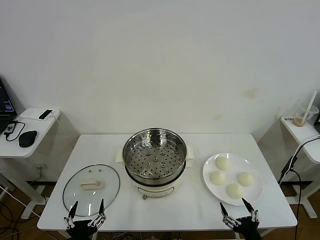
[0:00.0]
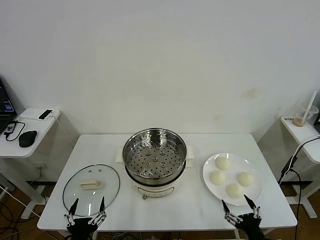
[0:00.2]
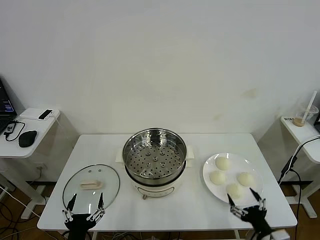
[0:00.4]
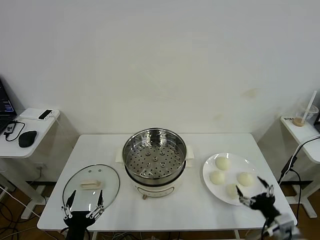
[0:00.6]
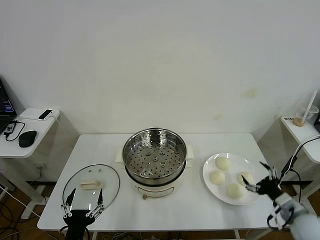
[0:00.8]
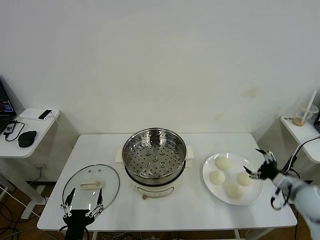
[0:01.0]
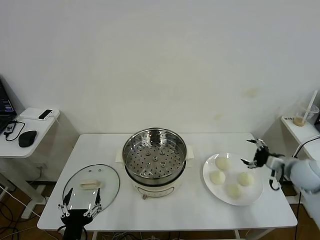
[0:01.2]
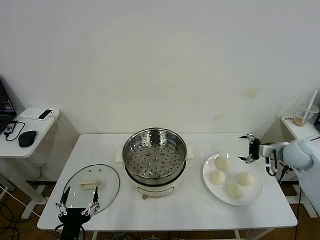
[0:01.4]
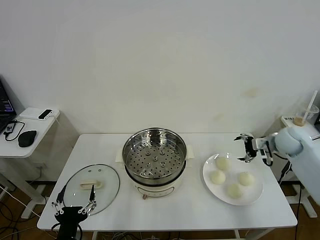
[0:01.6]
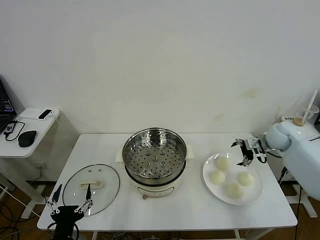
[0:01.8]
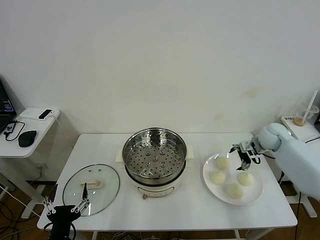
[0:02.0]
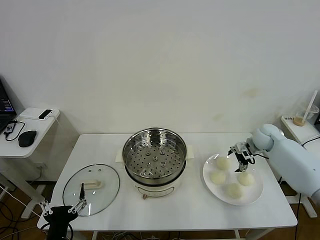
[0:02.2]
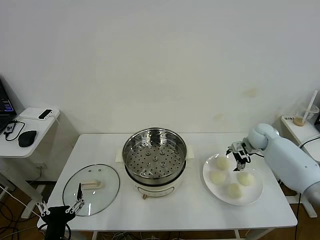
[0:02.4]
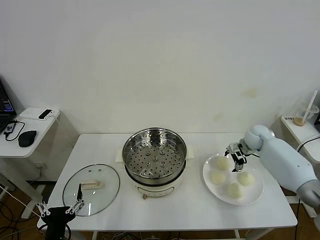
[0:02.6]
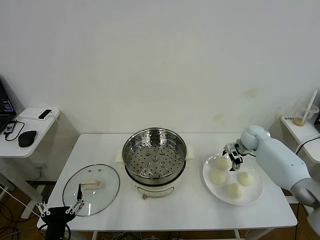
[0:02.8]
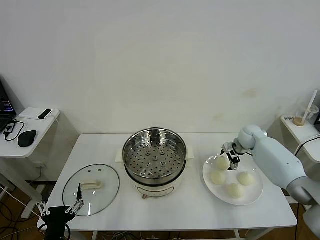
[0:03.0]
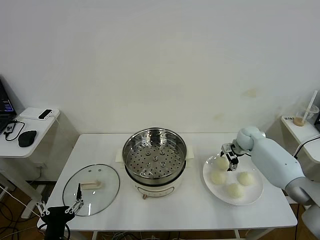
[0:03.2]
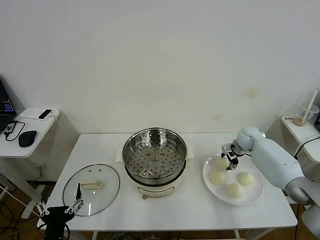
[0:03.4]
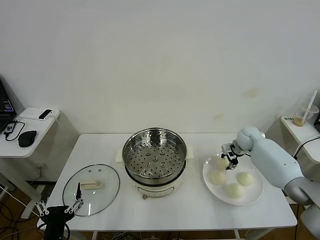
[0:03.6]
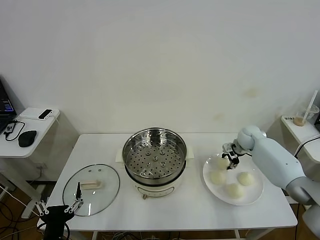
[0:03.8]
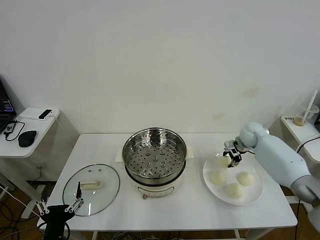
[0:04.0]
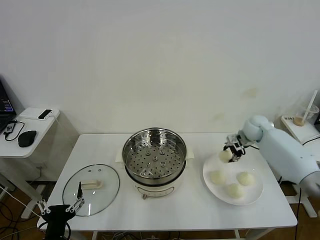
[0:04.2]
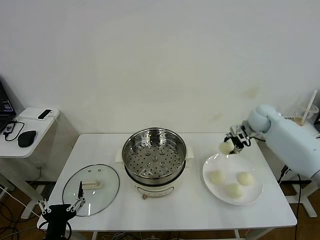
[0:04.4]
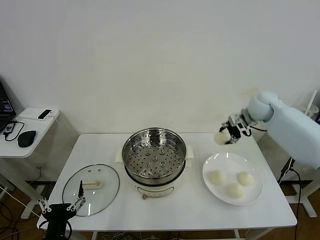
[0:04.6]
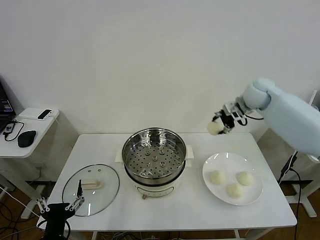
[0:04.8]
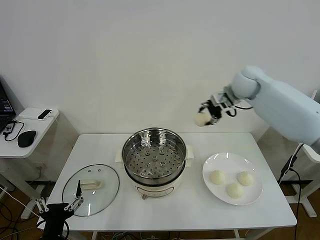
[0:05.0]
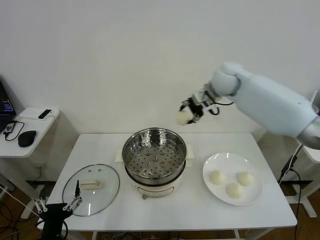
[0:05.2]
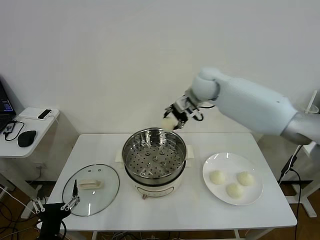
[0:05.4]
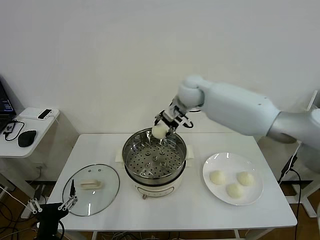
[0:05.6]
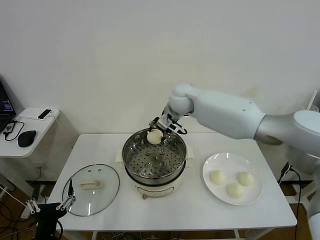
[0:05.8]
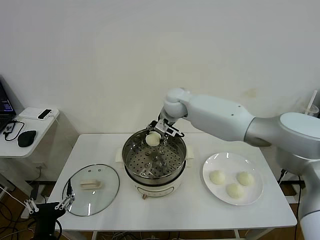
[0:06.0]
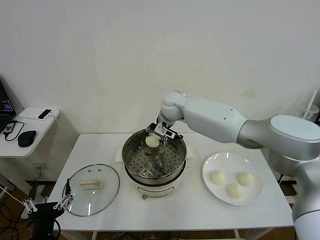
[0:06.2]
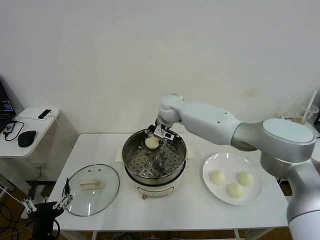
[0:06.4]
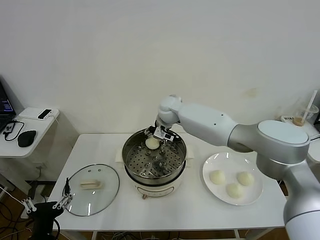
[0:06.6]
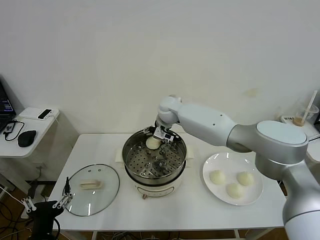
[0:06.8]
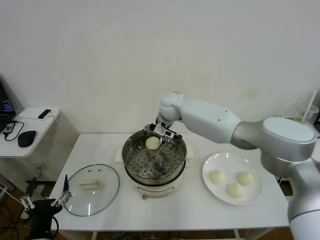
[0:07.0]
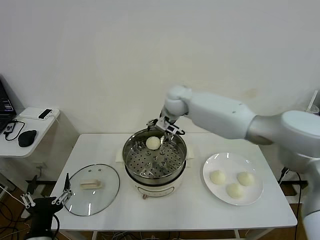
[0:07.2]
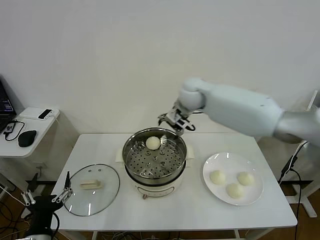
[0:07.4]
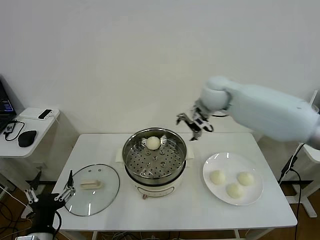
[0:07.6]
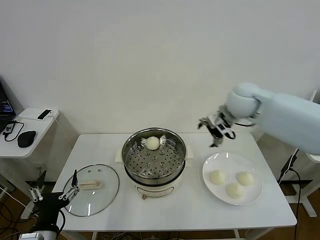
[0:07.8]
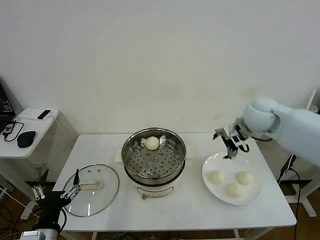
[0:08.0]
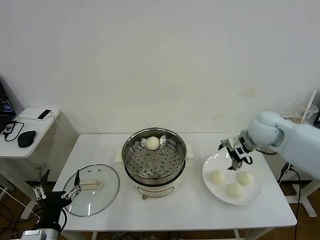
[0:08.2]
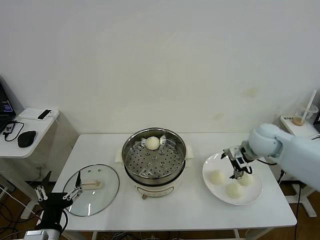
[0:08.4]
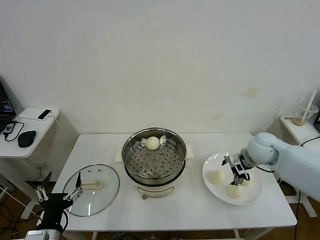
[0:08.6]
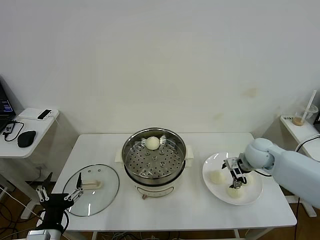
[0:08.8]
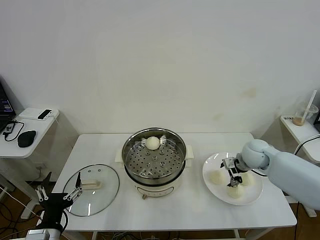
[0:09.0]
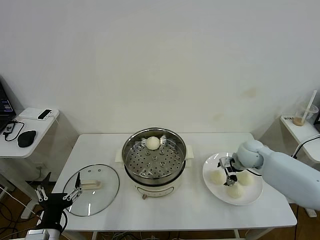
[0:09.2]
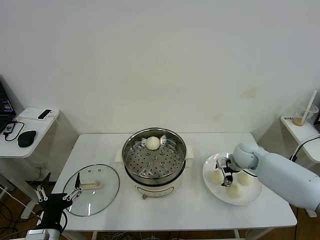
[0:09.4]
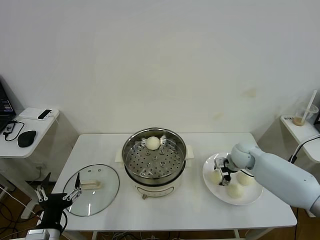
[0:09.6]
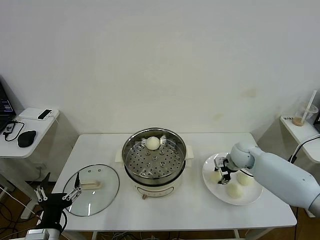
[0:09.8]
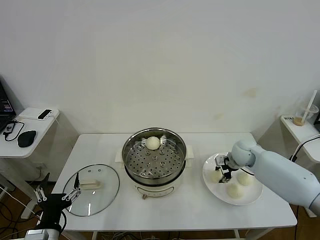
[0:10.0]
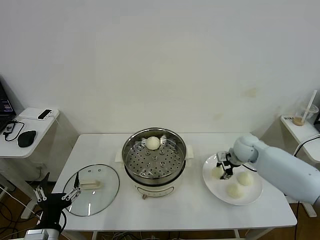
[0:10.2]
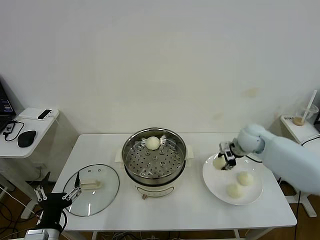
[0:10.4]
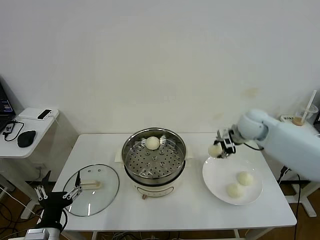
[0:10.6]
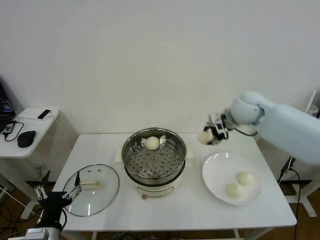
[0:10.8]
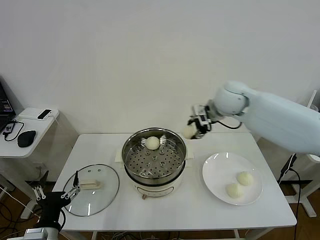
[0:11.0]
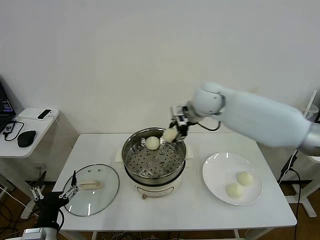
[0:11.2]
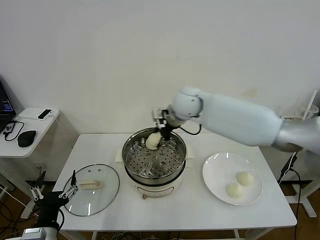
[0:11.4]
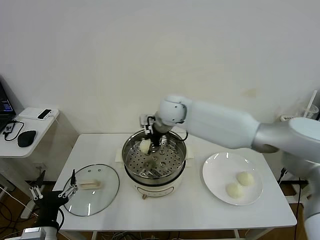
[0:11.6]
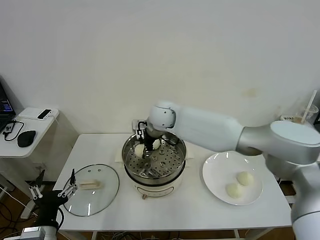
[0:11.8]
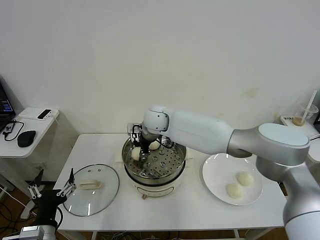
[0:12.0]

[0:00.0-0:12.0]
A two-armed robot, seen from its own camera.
Task of the whole recording: take steamed baozi put them in steamer then cover it.
Step, 0:00.0 to 0:03.6: Grasp the baozi in the plate with right gripper.
Step, 0:03.8 to 0:07.0: Place the baozi on the steamer with right gripper.
Step, 0:07.2 to 0:09.8: Grasp the baozi in the plate with right gripper.
0:01.6 to 0:03.0: The right gripper is displaced downward, forward and to the left by some 15 cm.
0:03.0 to 0:04.4: The right gripper moves upward, about 15 cm, and closes up.
0:04.4 to 0:06.0: The right gripper goes about 30 cm to the left.
0:06.0 to 0:07.6: The right gripper is displaced to the right and upward by some 20 cm, and opens its fingers.
0:07.6 to 0:09.0: The right gripper heads downward and to the right, covering some 25 cm.
0:09.0 to 0:10.4: The right gripper moves upward, some 10 cm, and closes its fingers.
0:10.4 to 0:12.0: The right gripper goes about 35 cm to the left.

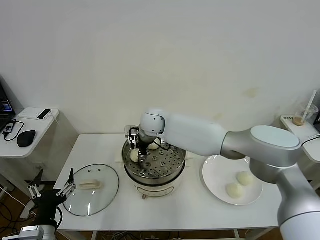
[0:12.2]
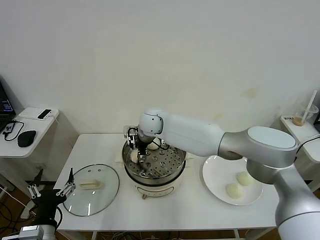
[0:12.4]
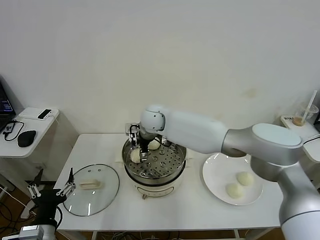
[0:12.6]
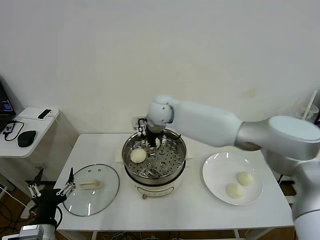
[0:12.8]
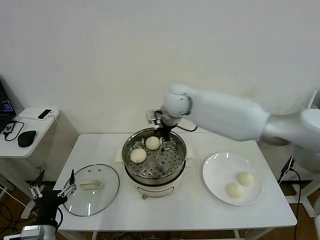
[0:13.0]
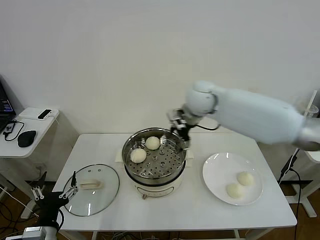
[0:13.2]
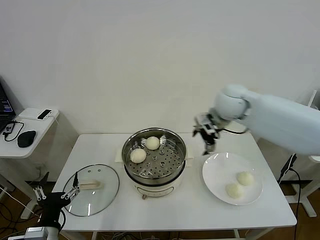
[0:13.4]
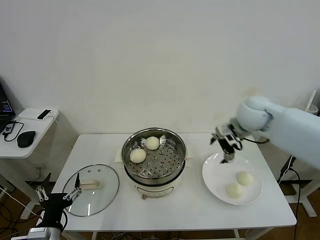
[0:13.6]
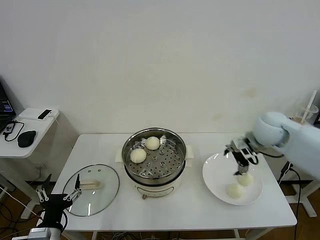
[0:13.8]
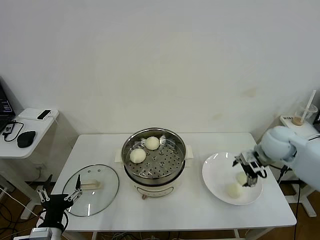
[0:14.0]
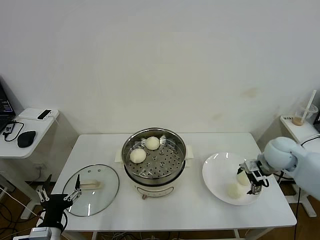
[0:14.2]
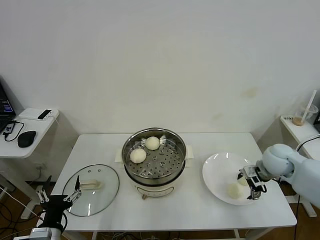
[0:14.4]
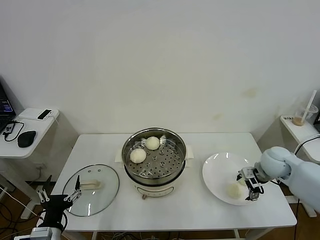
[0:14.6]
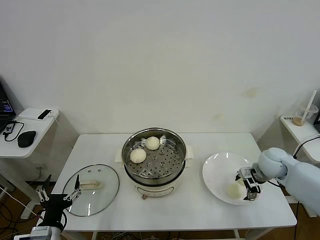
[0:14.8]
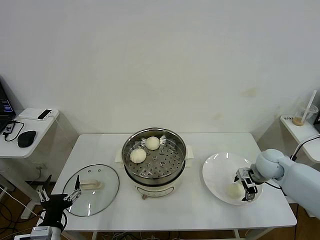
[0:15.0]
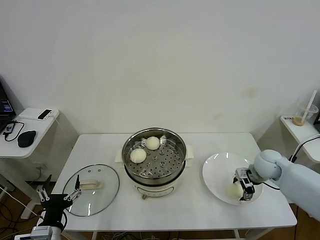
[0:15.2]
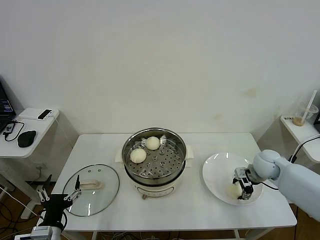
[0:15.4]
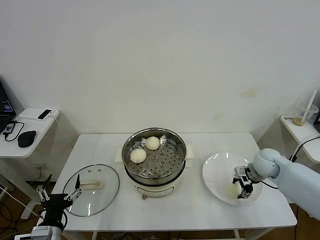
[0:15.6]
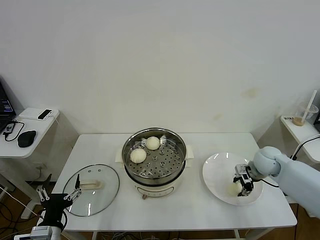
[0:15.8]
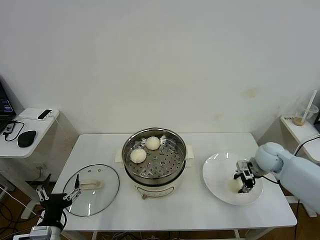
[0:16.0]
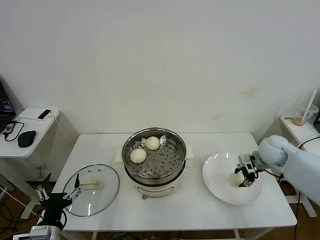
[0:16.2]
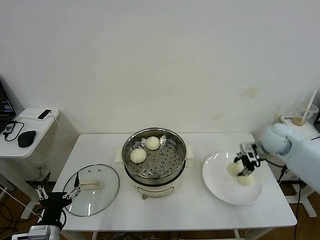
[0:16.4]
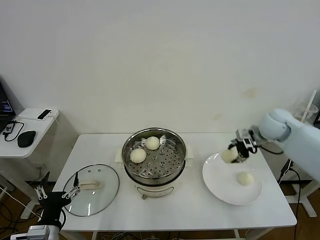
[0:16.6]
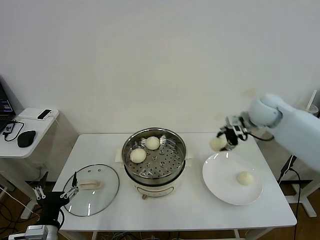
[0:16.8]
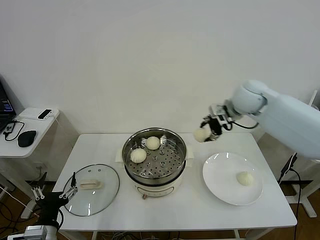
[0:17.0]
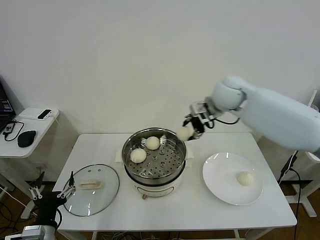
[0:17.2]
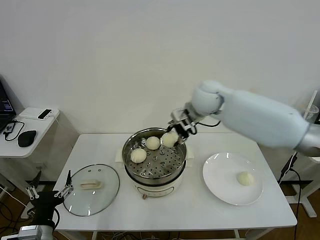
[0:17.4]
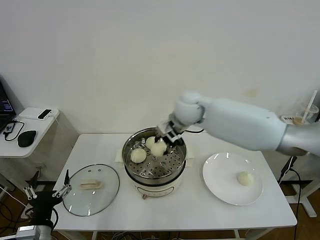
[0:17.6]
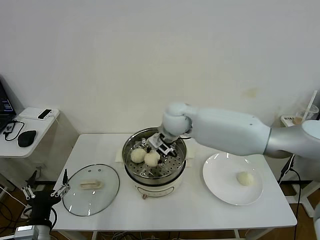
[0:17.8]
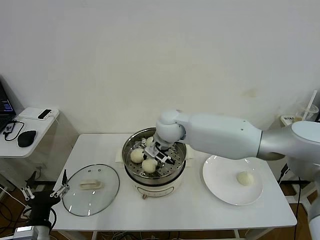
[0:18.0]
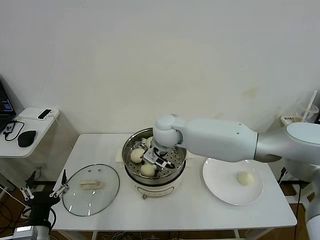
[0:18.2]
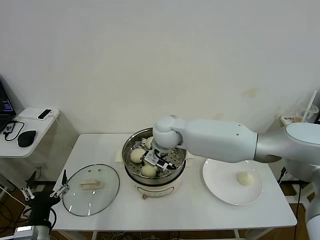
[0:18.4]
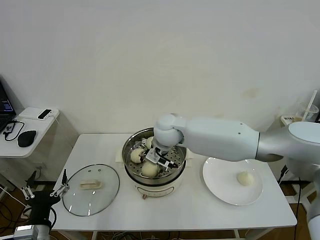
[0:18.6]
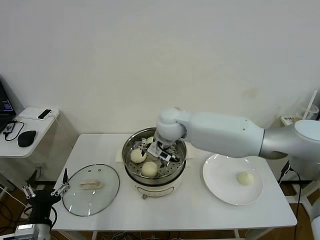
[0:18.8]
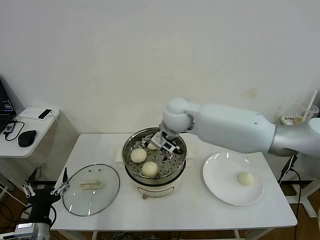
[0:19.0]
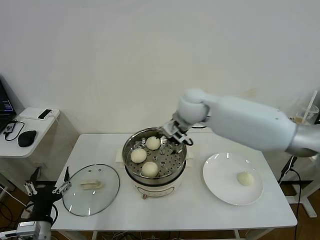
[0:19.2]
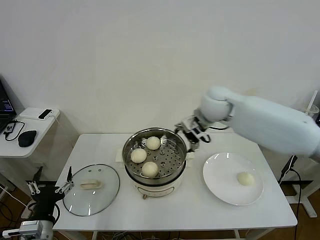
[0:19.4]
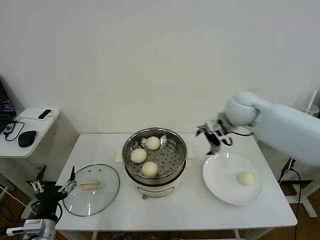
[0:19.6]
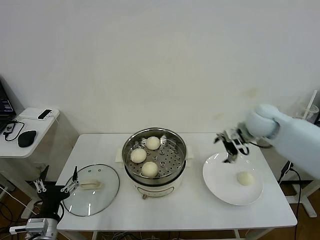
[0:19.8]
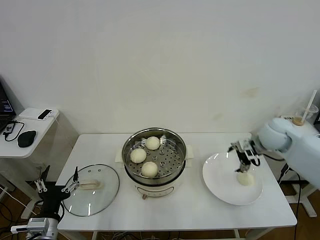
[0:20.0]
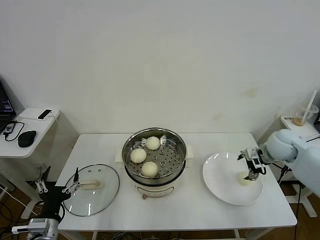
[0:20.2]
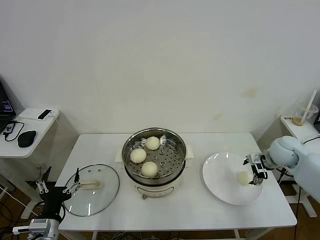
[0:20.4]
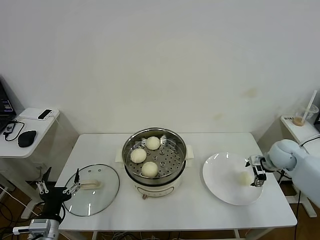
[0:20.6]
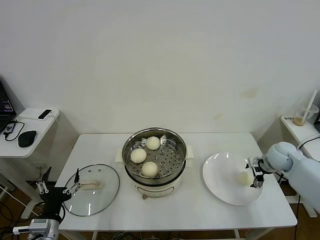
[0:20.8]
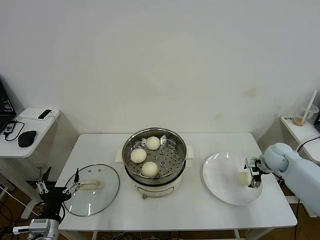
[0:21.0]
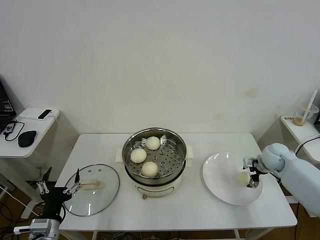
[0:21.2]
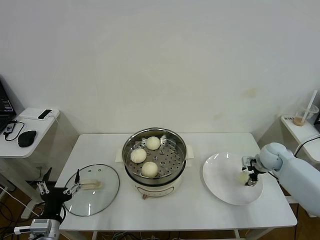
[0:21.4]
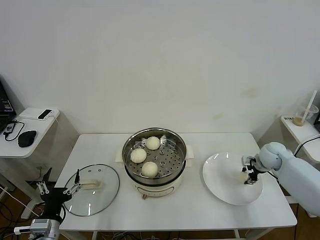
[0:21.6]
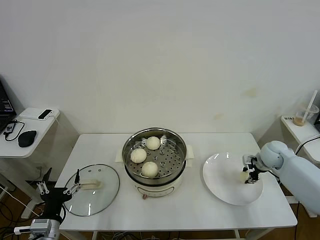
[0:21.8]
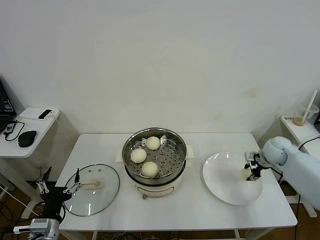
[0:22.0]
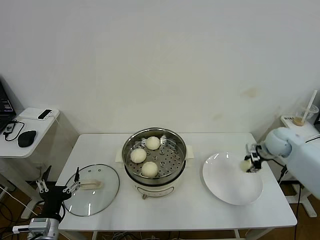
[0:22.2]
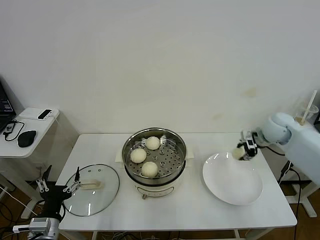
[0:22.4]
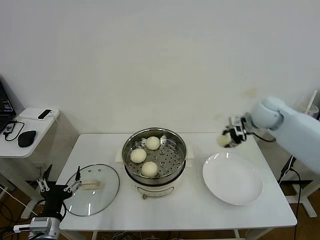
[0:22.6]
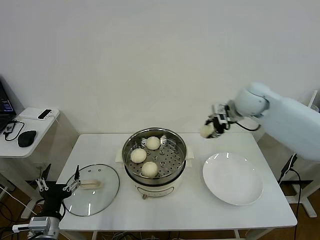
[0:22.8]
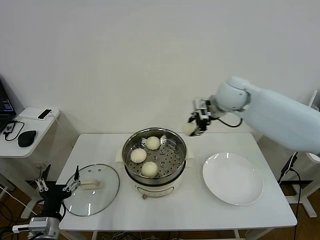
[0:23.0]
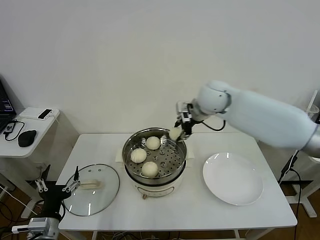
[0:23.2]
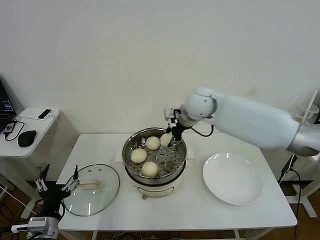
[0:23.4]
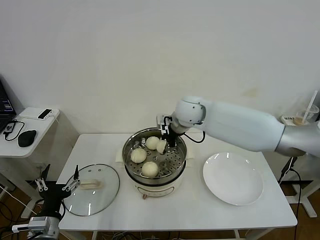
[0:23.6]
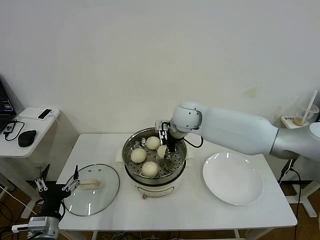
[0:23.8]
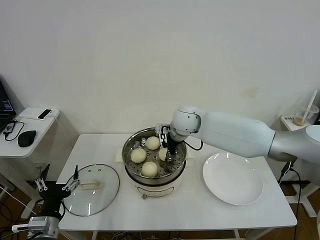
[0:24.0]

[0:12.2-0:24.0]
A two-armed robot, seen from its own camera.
Task of the whole recording: take steamed baozi put them in steamer then cover it.
Step, 0:12.8 to 0:15.6: Grasp the baozi in the plate with right gripper.
Step, 0:16.0 to 0:18.8: Place the baozi on the steamer with right gripper.
Step, 0:19.0 to 0:21.6: Grasp the baozi in the plate with right gripper.
0:12.2 to 0:13.6: The right gripper goes some 35 cm to the right, and opens.
0:13.6 to 0:15.2: The right gripper moves downward and to the right, approximately 20 cm.
0:15.2 to 0:16.6: The right gripper travels upward by some 15 cm, and closes.
0:16.6 to 0:18.2: The right gripper travels to the left by some 35 cm.
0:18.2 to 0:19.6: The right gripper moves to the right, roughly 25 cm, and opens.
0:19.6 to 0:21.0: The right gripper travels downward and to the right by some 25 cm.
0:21.0 to 0:22.6: The right gripper heads upward and to the left, covering about 20 cm, and closes.
0:22.6 to 0:24.0: The right gripper shifts about 25 cm to the left.
